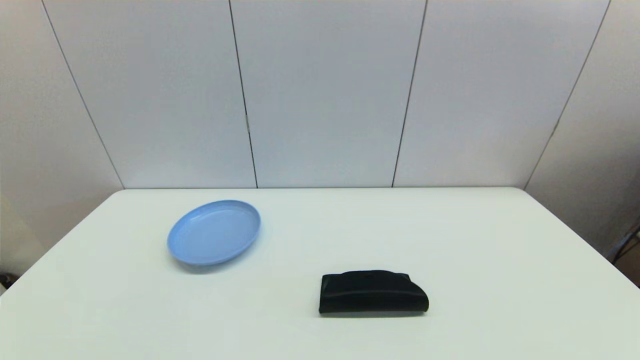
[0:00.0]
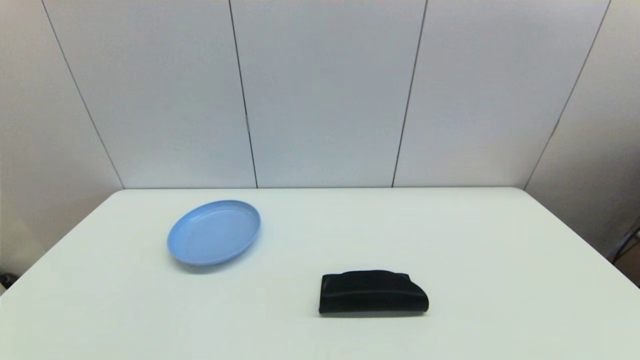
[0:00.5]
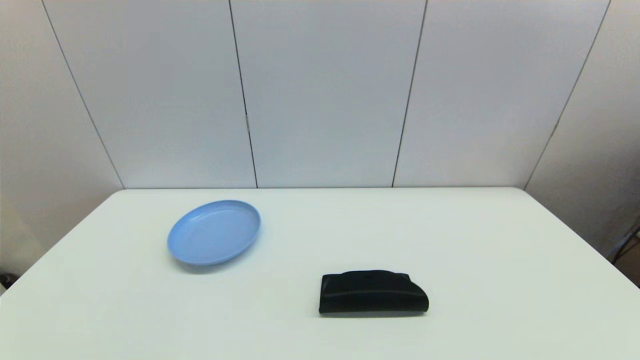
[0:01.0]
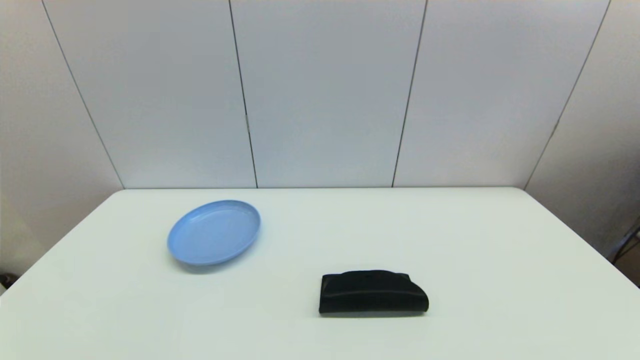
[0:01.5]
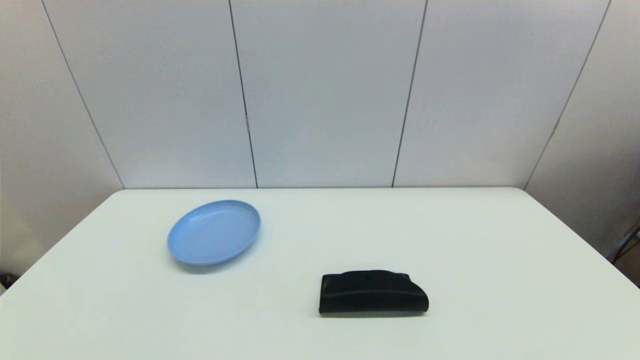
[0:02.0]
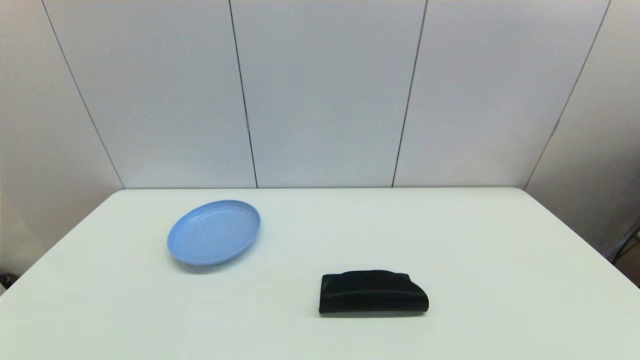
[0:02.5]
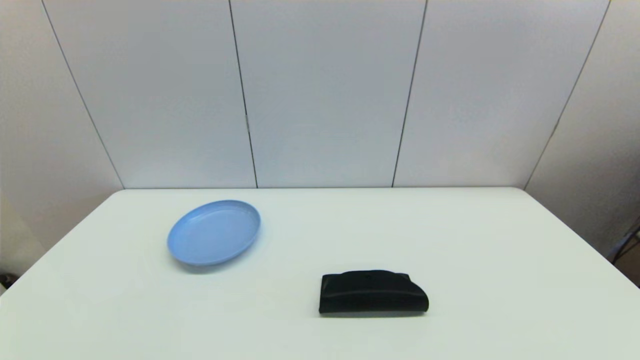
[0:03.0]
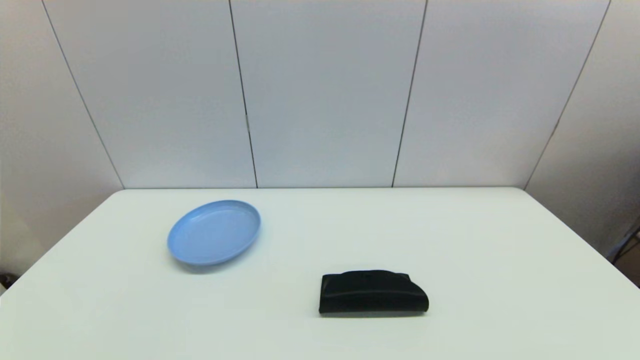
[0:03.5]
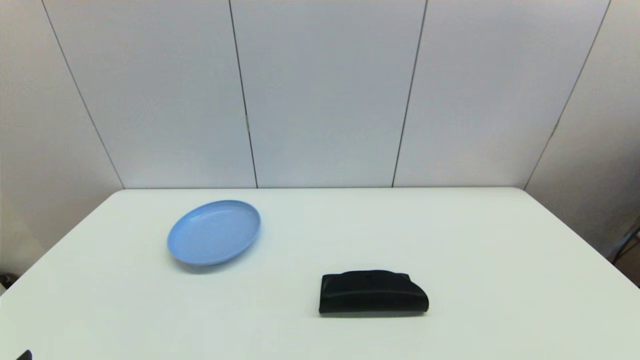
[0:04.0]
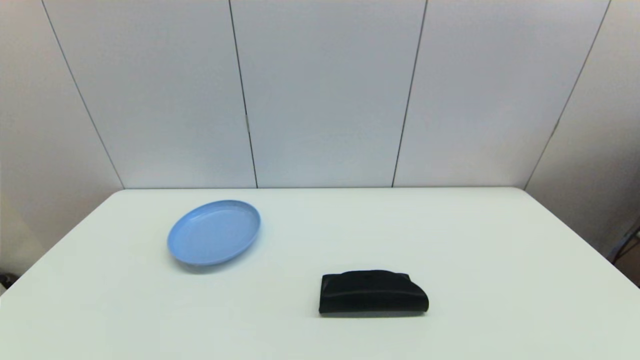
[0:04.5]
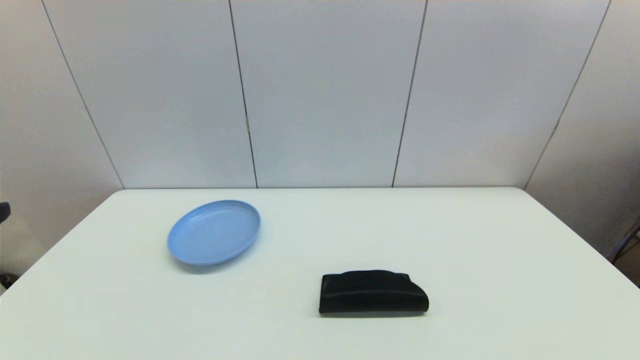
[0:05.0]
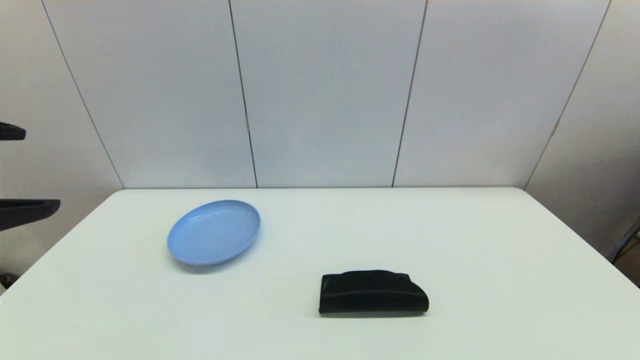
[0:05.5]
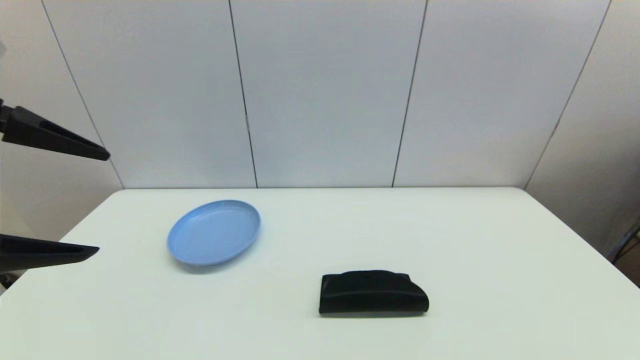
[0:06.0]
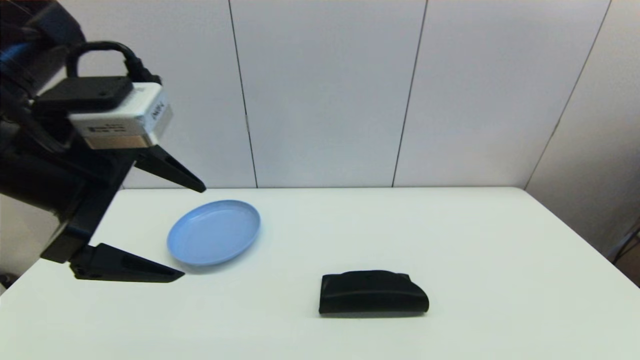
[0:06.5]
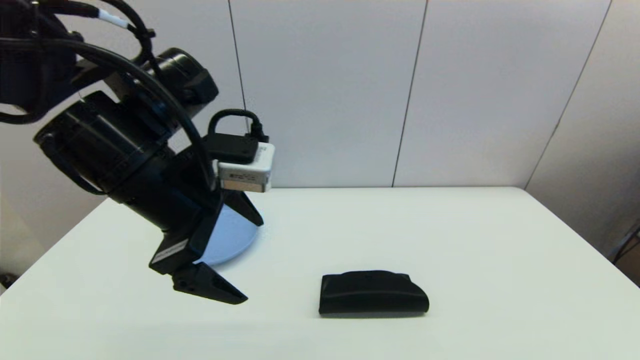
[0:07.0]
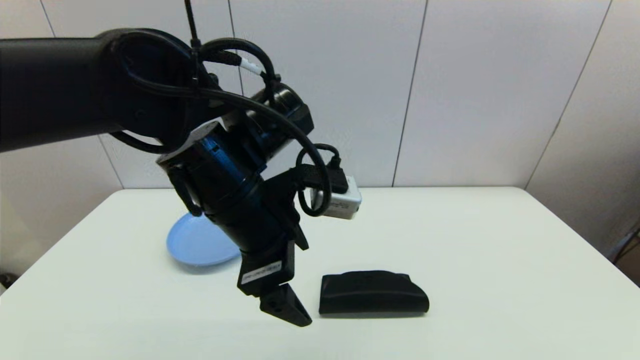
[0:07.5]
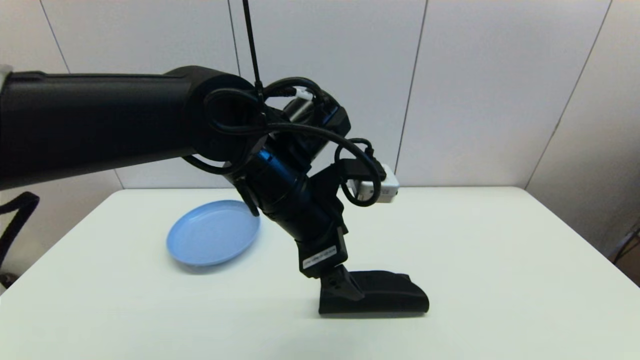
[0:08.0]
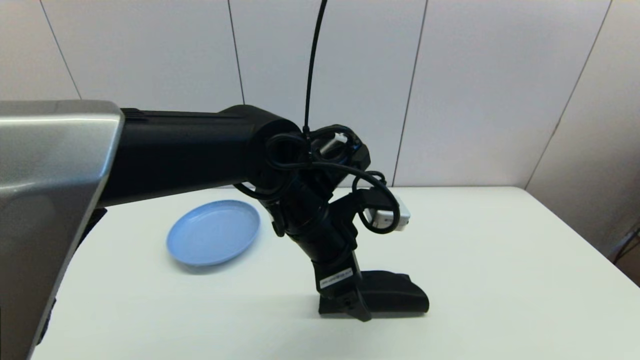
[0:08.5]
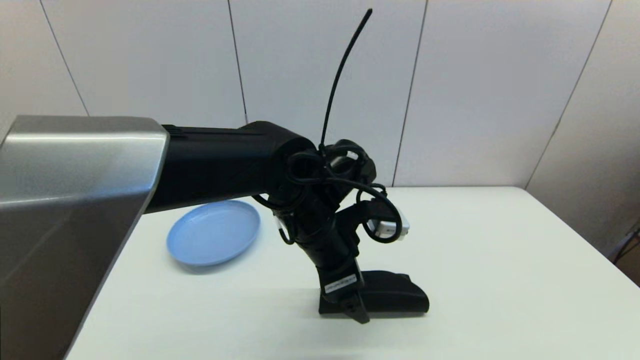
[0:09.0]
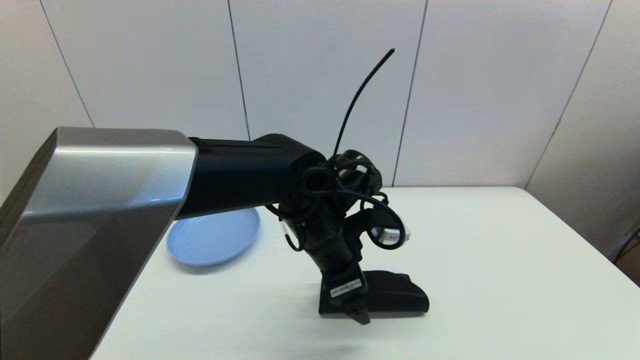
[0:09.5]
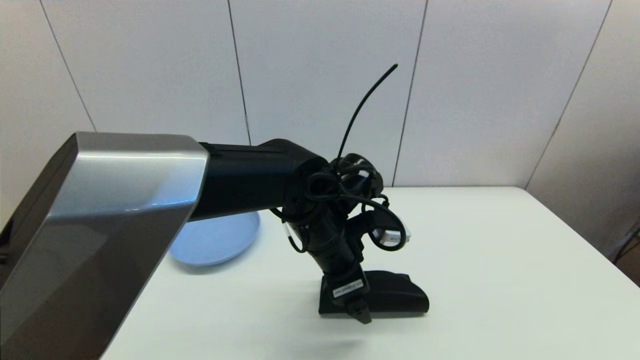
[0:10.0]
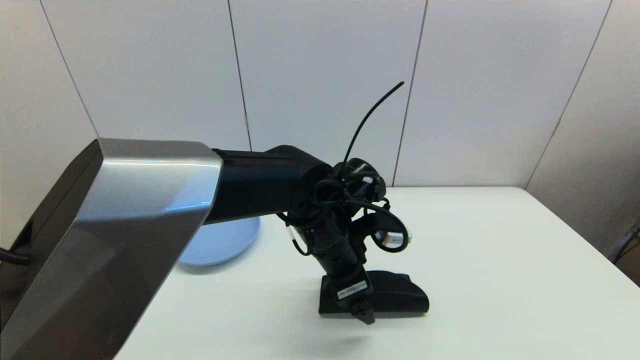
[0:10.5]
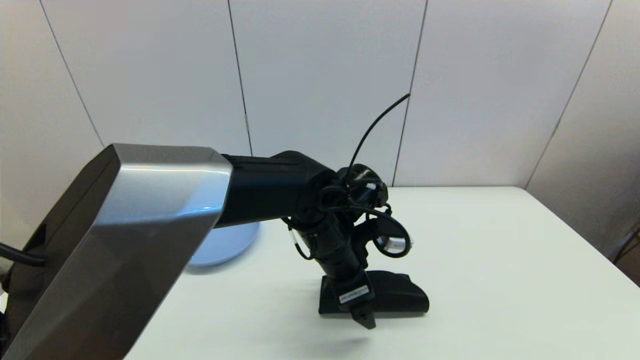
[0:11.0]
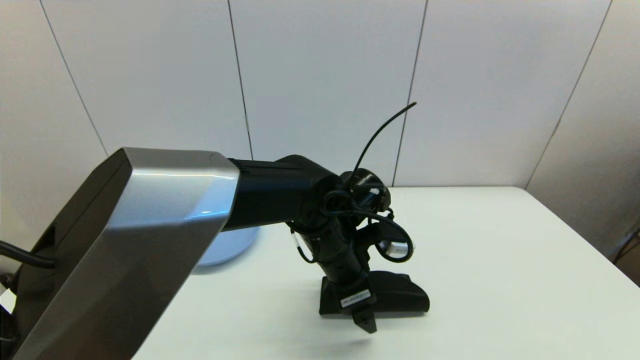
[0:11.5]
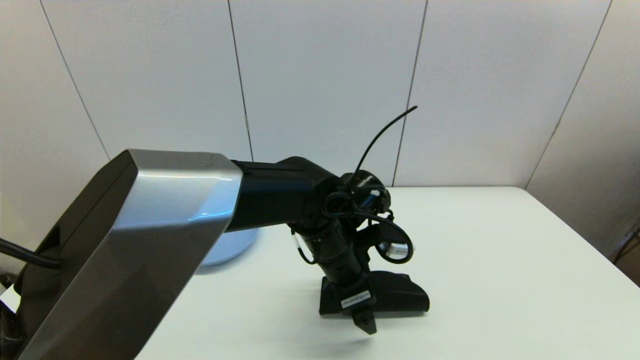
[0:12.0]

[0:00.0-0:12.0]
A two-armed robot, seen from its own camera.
0.0 to 2.0 s: The two grippers keep their place.
4.0 to 6.0 s: The left gripper is displaced upward and forward by roughly 25 cm.
6.0 to 8.0 s: The left gripper goes approximately 30 cm to the right, forward and downward.
8.0 to 10.0 s: The left gripper is displaced downward by some 10 cm.
10.0 to 12.0 s: The grippers make only small movements.

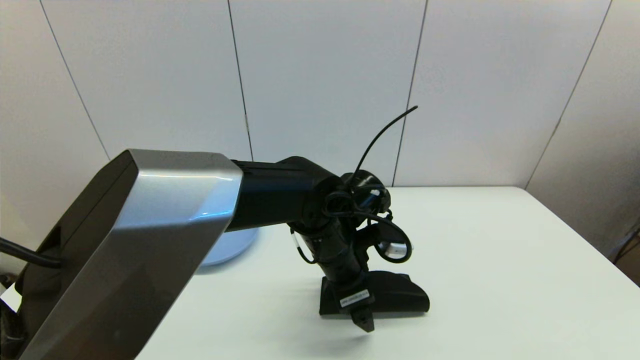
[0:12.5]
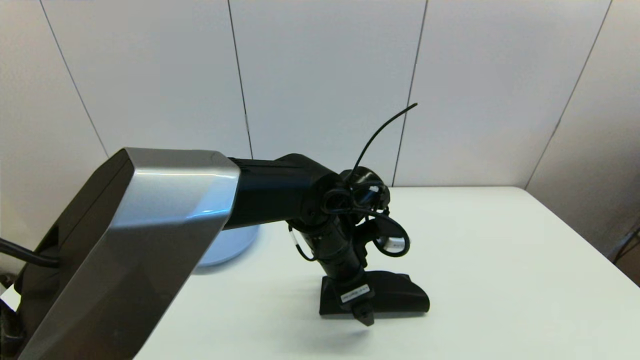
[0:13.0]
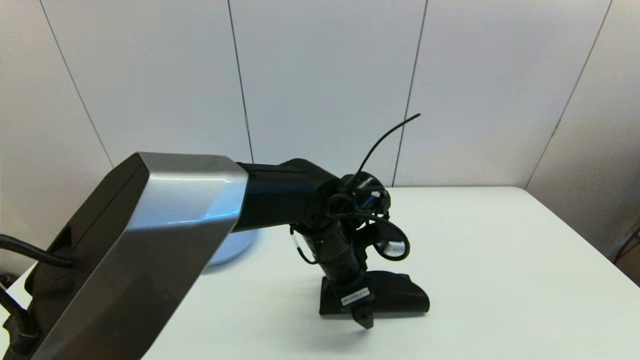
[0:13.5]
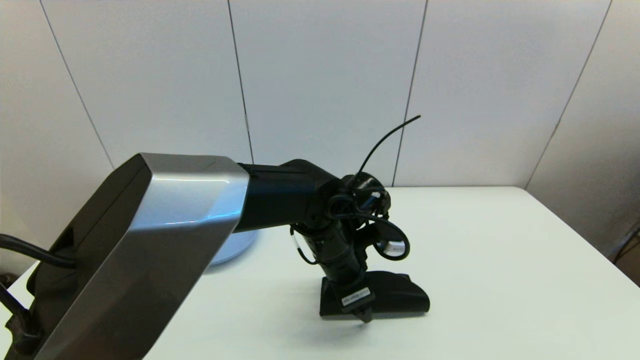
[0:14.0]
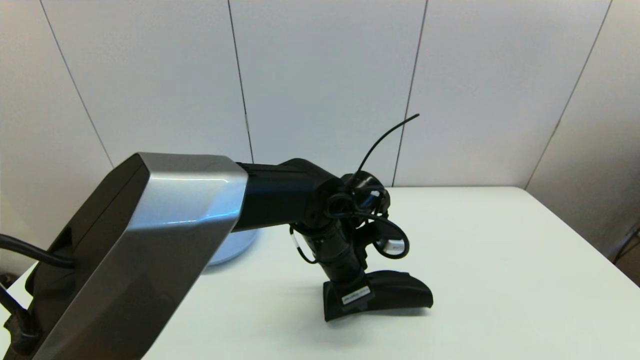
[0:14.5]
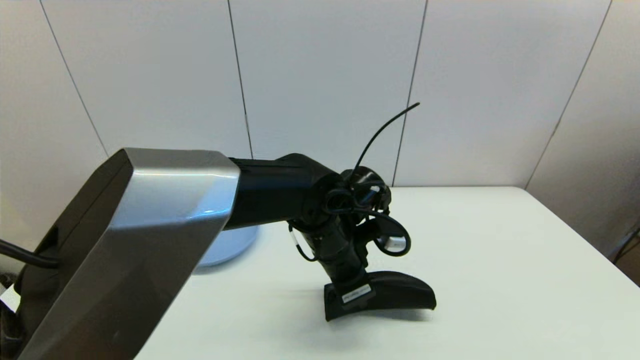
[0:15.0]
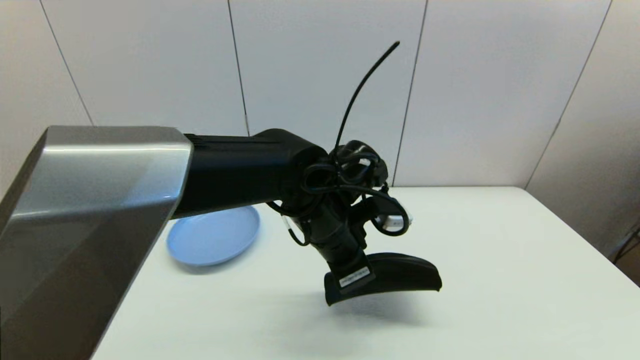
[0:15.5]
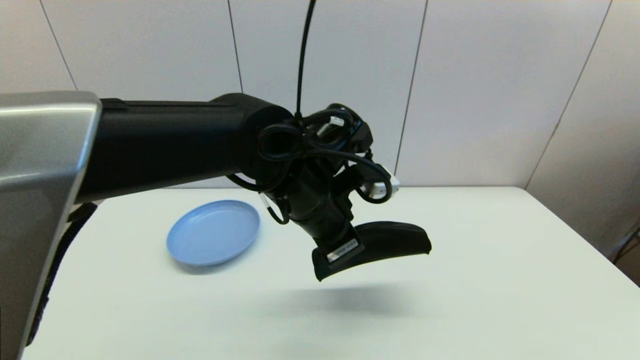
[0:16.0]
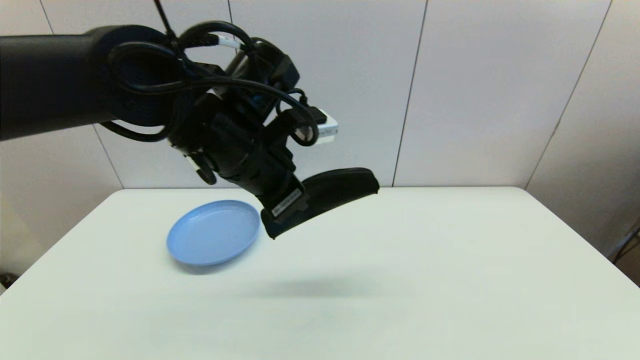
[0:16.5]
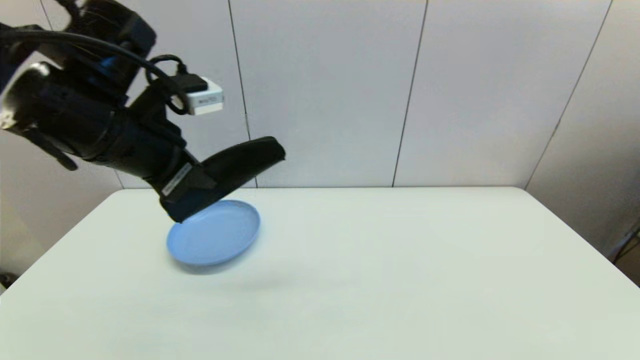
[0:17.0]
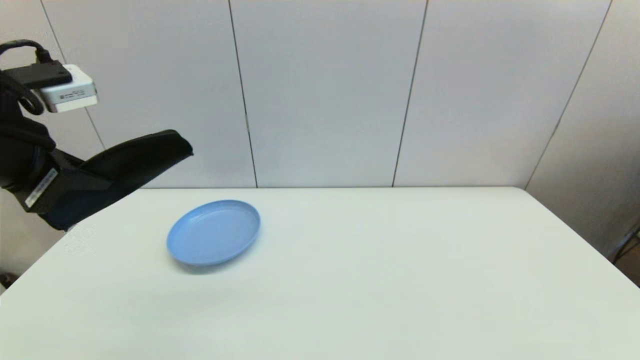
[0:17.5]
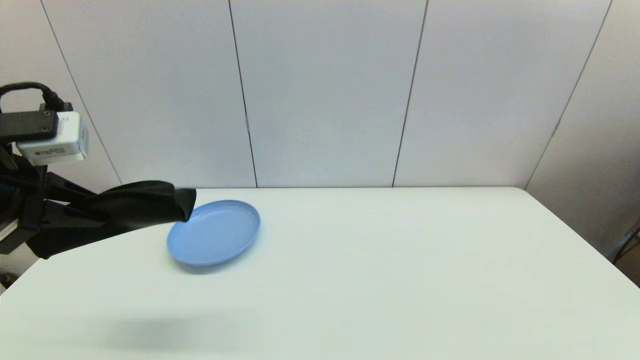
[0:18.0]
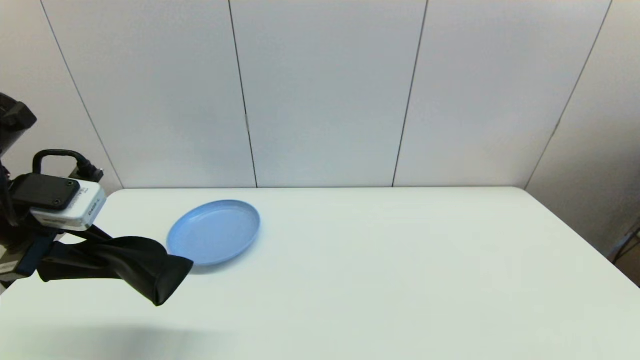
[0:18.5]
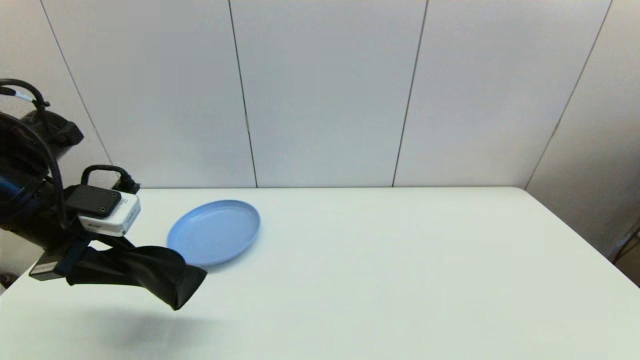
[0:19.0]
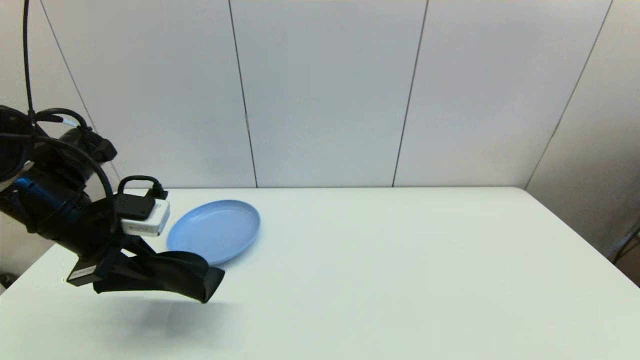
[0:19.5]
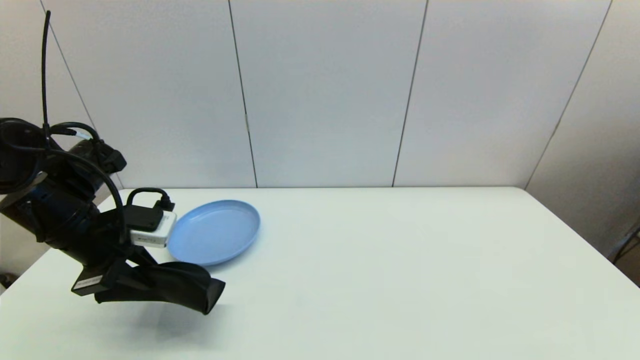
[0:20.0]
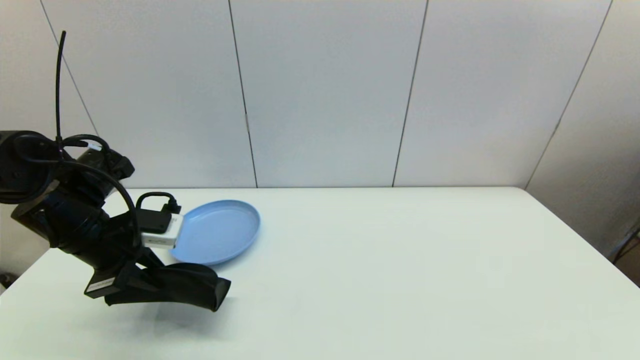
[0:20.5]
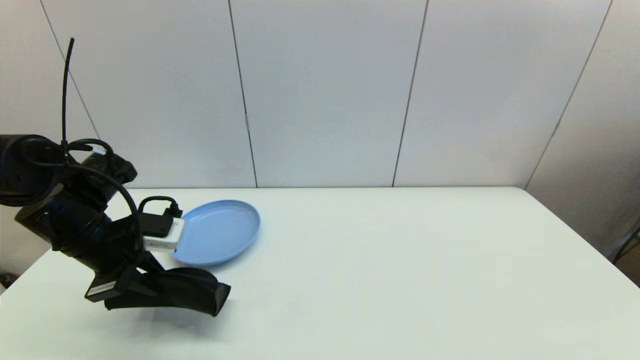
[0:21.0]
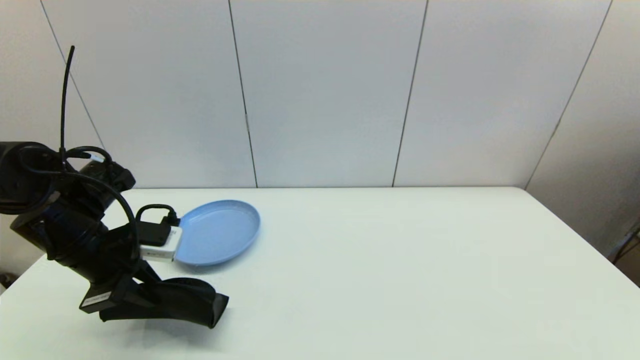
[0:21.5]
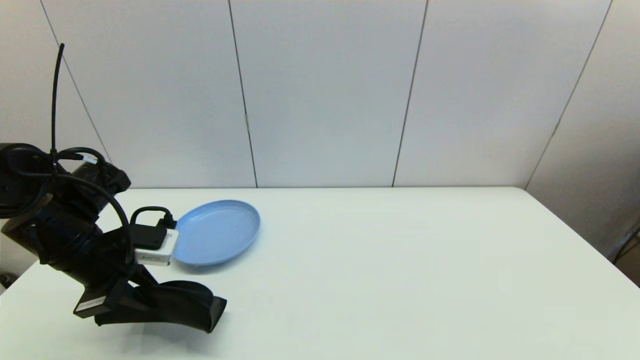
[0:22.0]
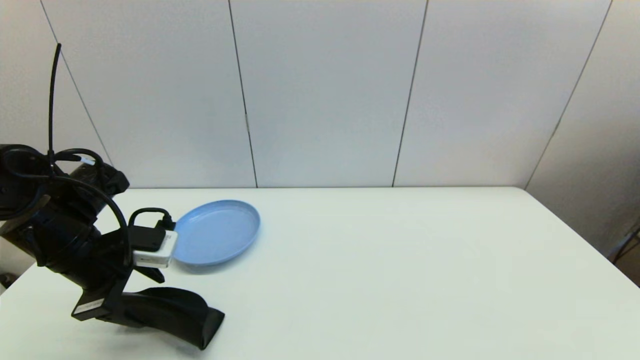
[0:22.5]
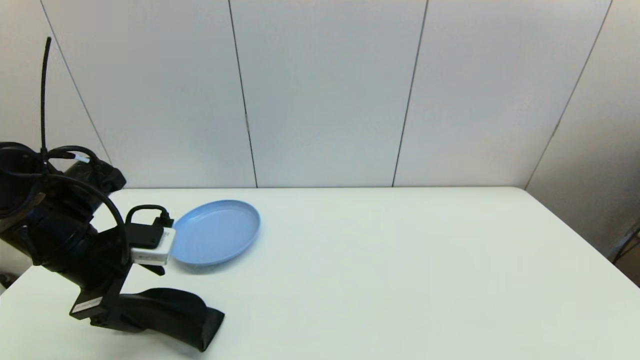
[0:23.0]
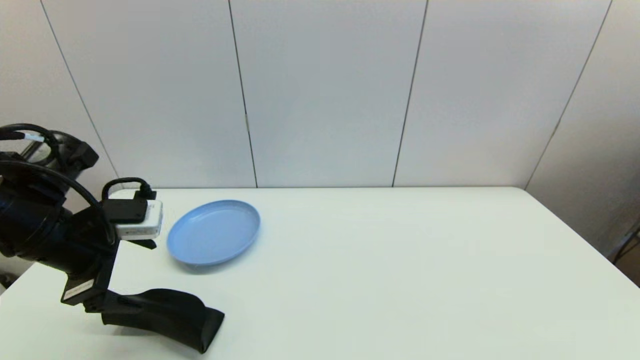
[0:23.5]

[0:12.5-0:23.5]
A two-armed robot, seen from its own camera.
Step, 12.5 to 14.5 s: Grasp the glasses case with left gripper.
Step, 15.0 to 22.5 s: Place the glasses case on the table with left gripper.
12.5 to 14.5 s: The left gripper closes up.
14.5 to 16.0 s: The left gripper heads upward, covering roughly 10 cm.
16.0 to 18.0 s: The left gripper goes some 30 cm to the left.
18.0 to 20.0 s: The left gripper moves downward and forward, approximately 15 cm.
20.0 to 21.5 s: There are only small adjustments of the grippers.
21.5 to 23.5 s: The left gripper changes place by roughly 5 cm, and opens its fingers.
